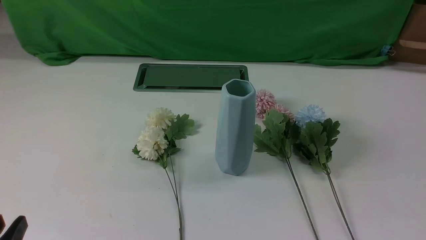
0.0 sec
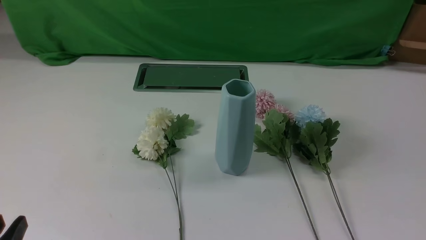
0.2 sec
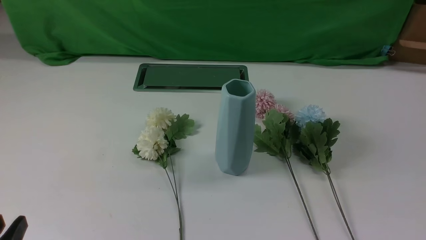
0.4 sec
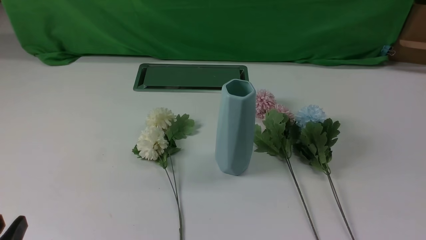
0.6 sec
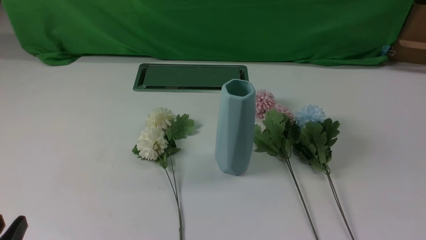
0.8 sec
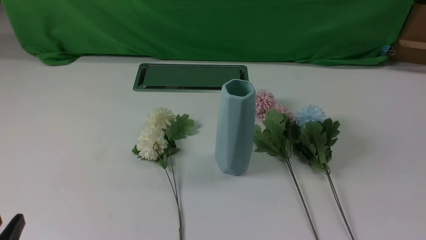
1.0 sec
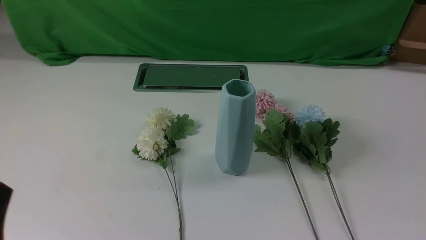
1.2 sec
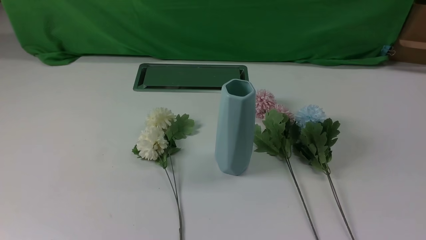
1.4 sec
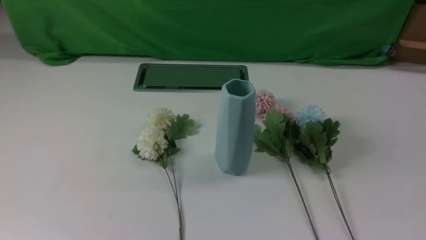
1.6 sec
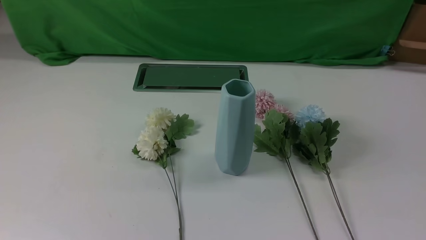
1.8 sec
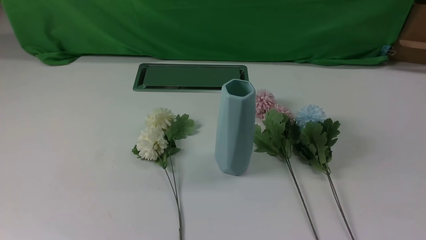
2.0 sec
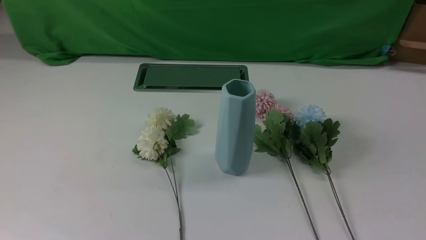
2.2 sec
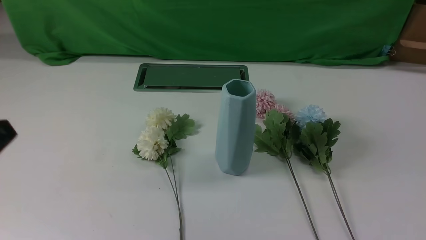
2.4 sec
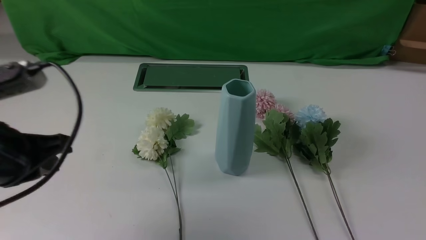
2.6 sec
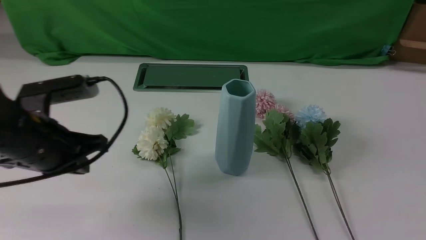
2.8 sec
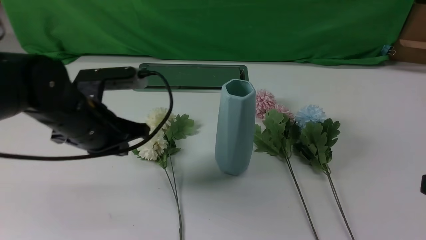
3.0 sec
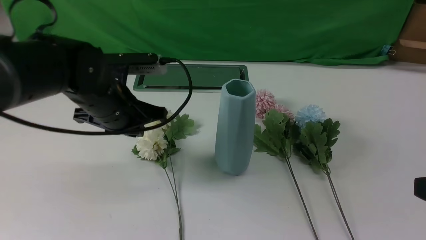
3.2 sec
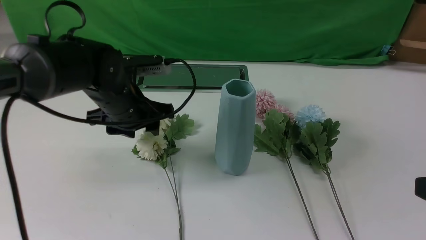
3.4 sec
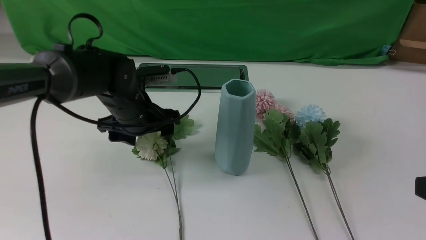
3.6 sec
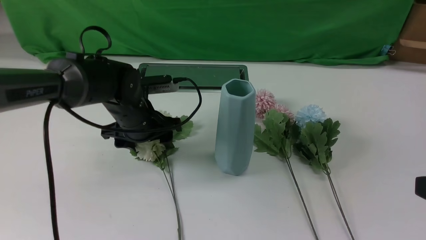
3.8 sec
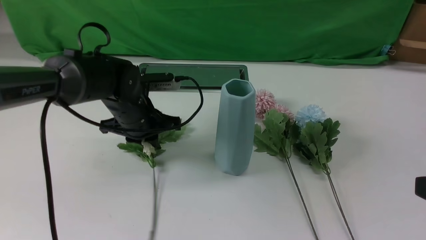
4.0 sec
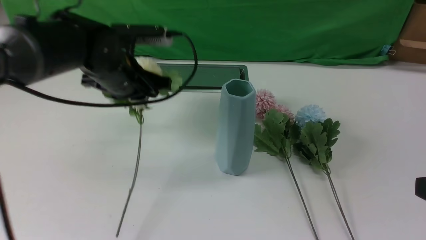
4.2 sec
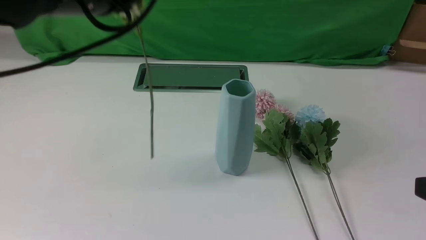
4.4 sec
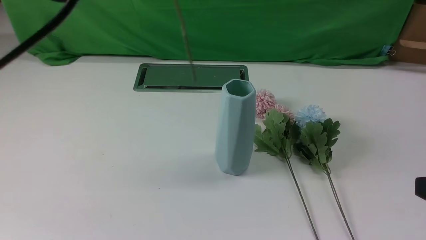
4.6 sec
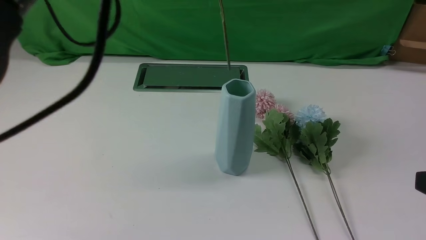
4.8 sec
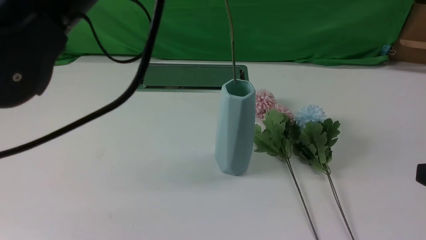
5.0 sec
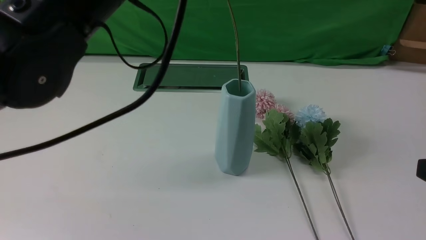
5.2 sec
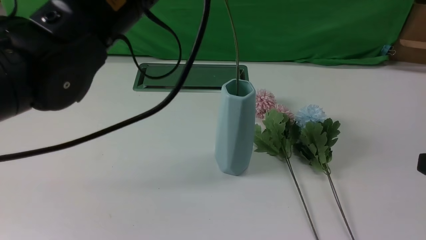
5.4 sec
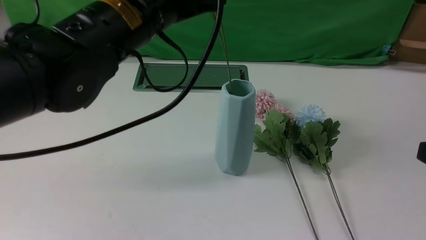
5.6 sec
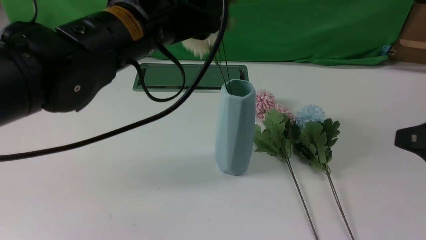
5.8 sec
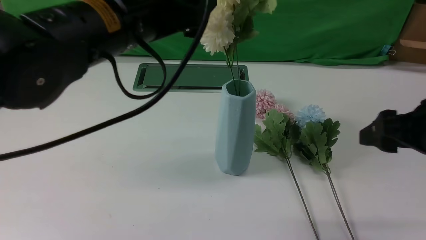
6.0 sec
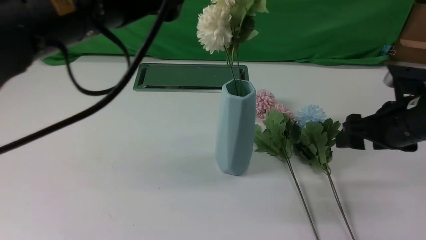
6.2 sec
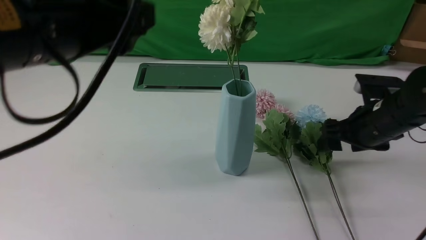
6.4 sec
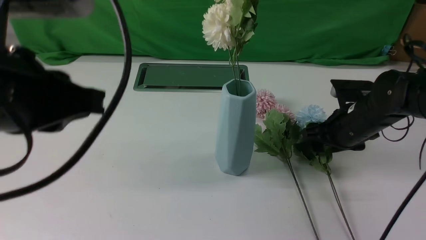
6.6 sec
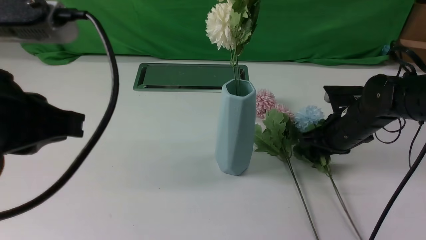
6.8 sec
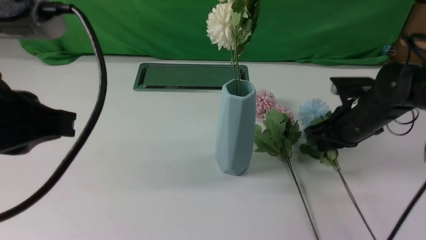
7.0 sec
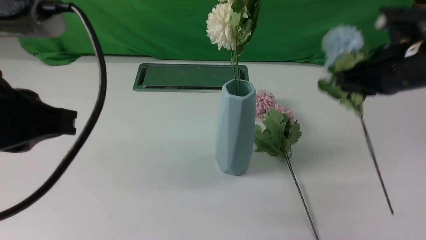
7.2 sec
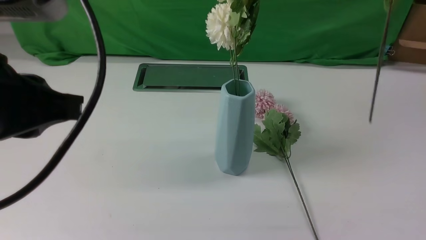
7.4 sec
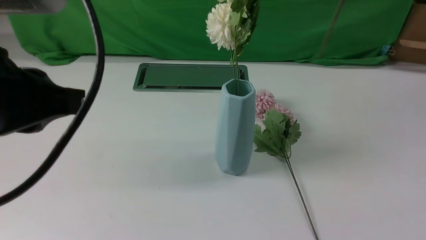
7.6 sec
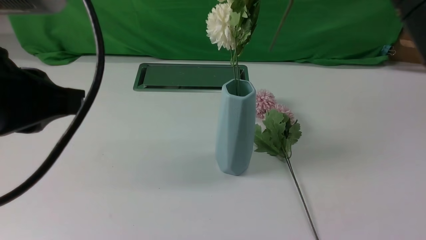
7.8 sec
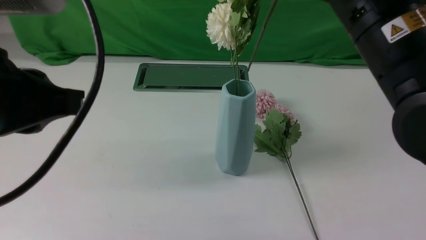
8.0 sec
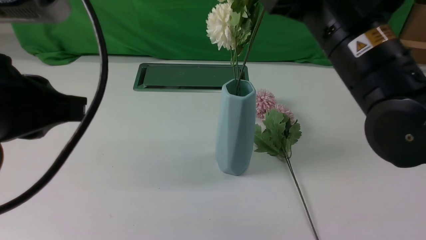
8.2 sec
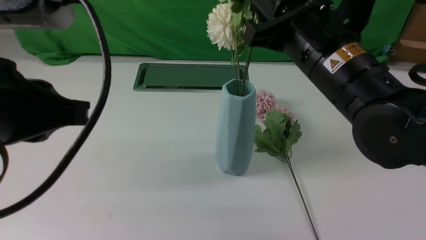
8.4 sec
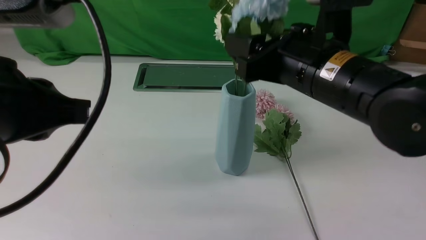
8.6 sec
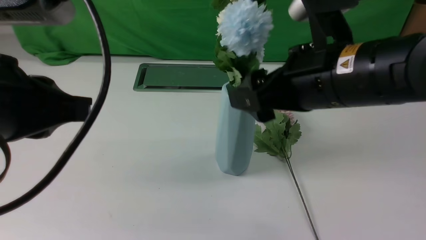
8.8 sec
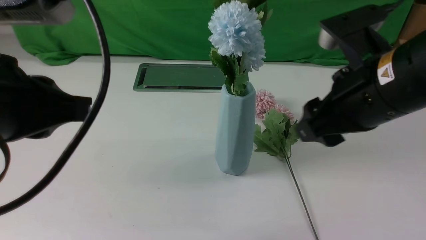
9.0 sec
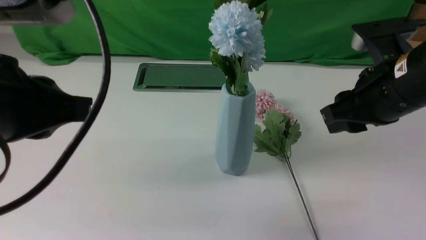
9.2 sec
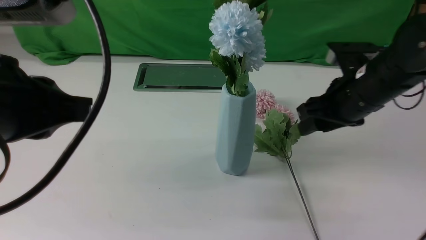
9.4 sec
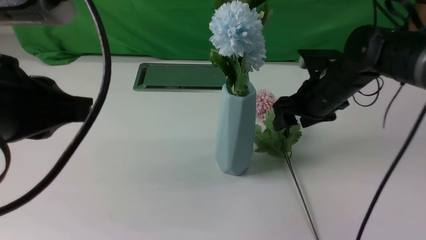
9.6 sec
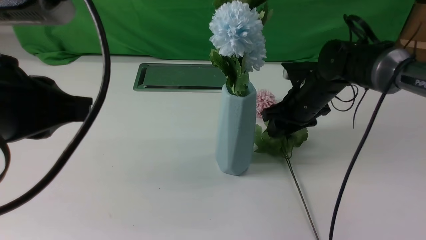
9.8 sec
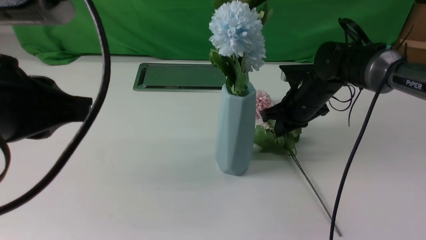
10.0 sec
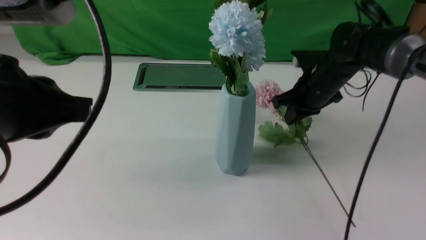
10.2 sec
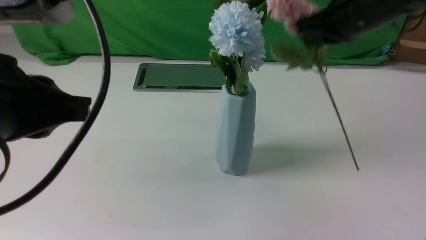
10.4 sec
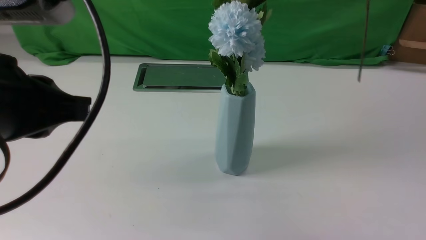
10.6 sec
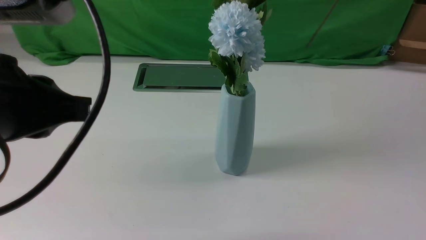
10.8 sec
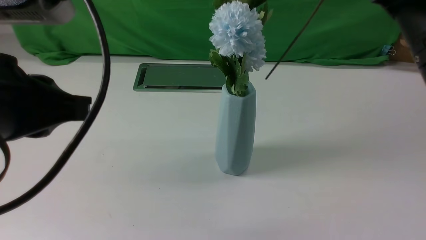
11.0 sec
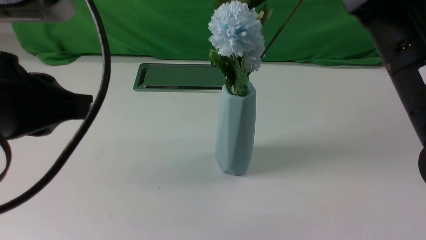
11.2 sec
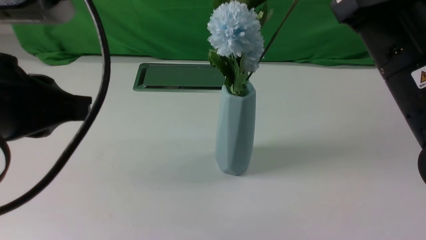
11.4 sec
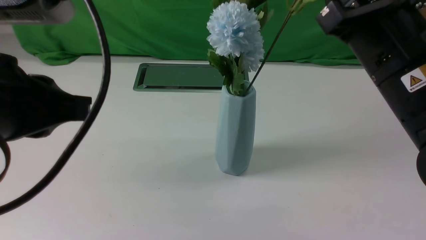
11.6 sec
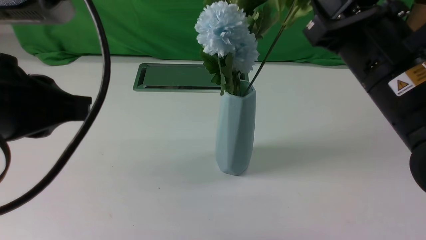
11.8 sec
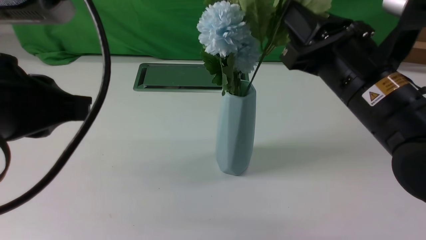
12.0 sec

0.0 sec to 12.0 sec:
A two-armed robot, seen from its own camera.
Task of the whole recording: insert the flowers into the vase on the white table.
Step, 0.0 sec to 3.8 sec: use the left arm to grab a bunch of fresh flowers.
Step, 4.2 sec to 5.8 sec: use the left arm to insert the flowers into the vase.
Step, 6.0 sec to 6.8 sec: use the right arm to grab a bunch of fresh flowers.
Step, 7.0 sec to 8.6 sec: use the right arm to insert the flowers into the vase.
Step, 8.8 sec to 10.0 sec: use the right arm to grab a bunch of fresh flowers.
1.6 sec to 3.0 sec: The left gripper heads forward, covering approximately 25 cm, and closes up. The right gripper travels upward and forward by some 15 cm.
3.0 sec to 4.4 sec: The left gripper goes some 15 cm upward, and opens, then closes once more.
4.4 sec to 6.0 sec: The left gripper travels backward by approximately 5 cm, moves roughly 5 cm upward and comes back, and opens; the right gripper travels forward by about 15 cm, and opens its fingers.
6.0 sec to 7.6 sec: The left gripper moves backward and to the left, roughly 15 cm, and closes its fingers, while the right gripper is displaced upward and to the left by approximately 20 cm, and closes.
7.6 sec to 9.0 sec: The right gripper travels downward by some 10 cm, and opens up.
9.0 sec to 10.4 sec: The right gripper heads forward, covering some 15 cm, moves approximately 15 cm downward and comes back, and closes up.
10.4 sec to 12.0 sec: The right gripper travels backward and downward by approximately 15 cm, and opens up.

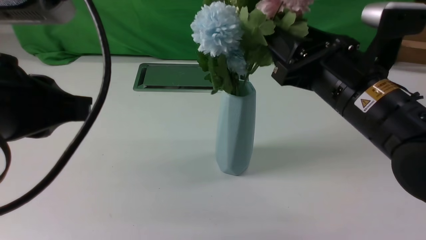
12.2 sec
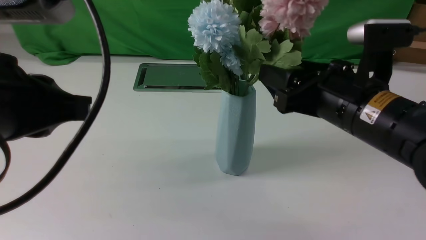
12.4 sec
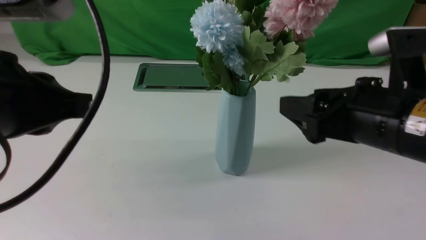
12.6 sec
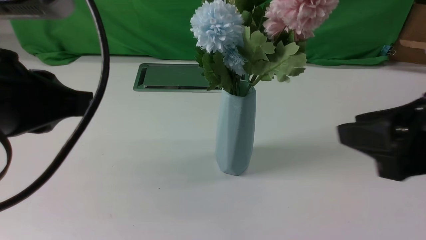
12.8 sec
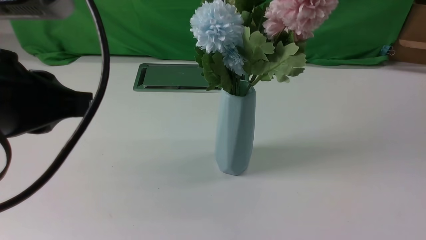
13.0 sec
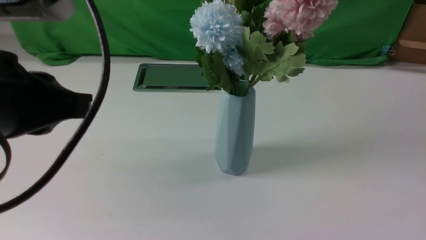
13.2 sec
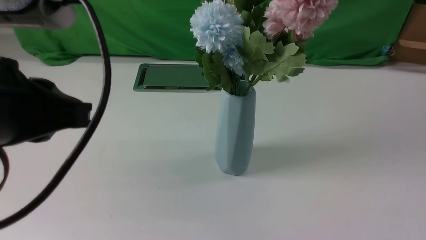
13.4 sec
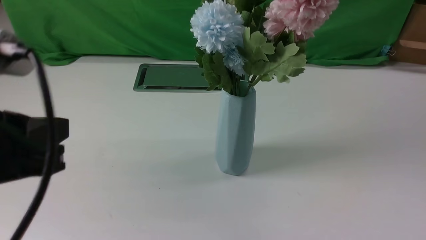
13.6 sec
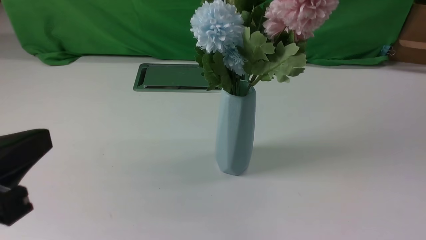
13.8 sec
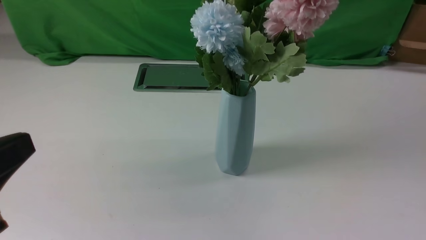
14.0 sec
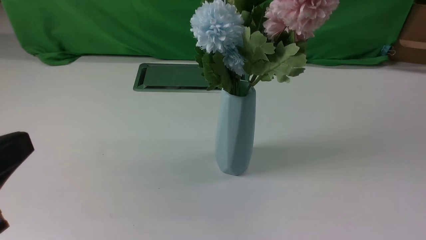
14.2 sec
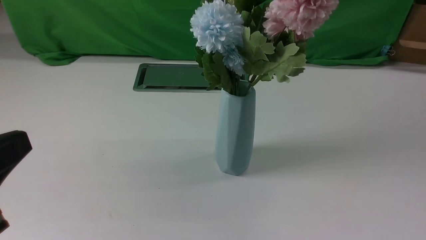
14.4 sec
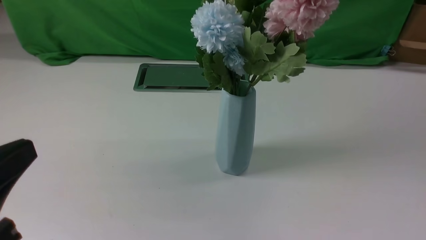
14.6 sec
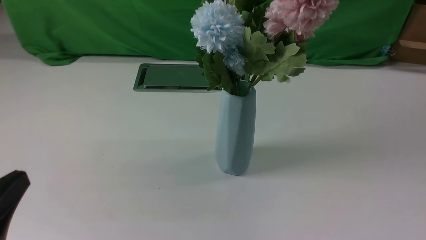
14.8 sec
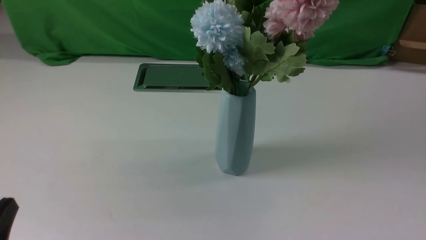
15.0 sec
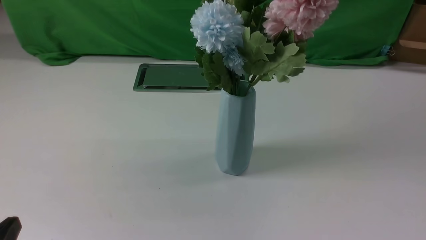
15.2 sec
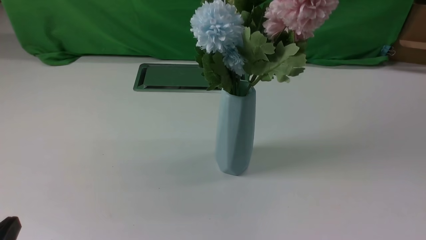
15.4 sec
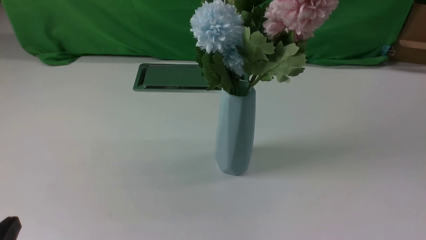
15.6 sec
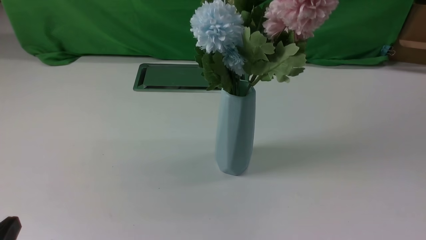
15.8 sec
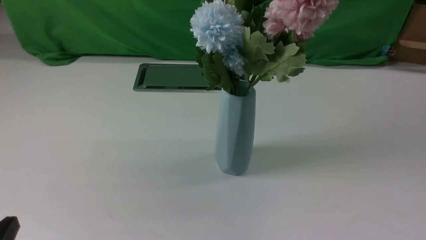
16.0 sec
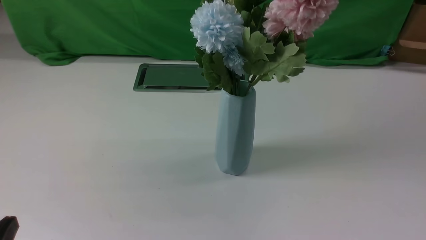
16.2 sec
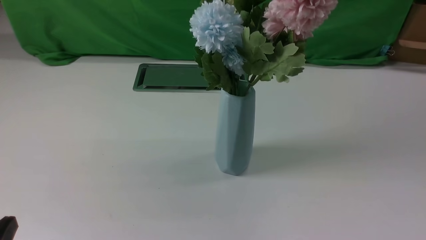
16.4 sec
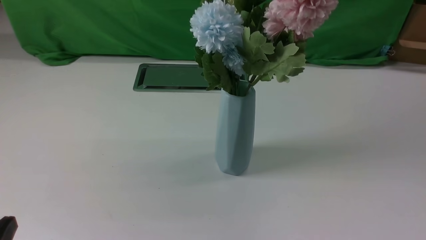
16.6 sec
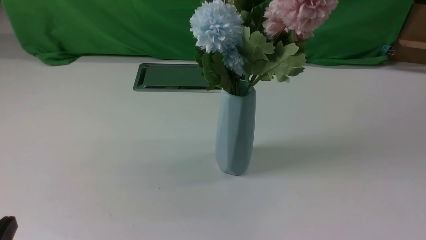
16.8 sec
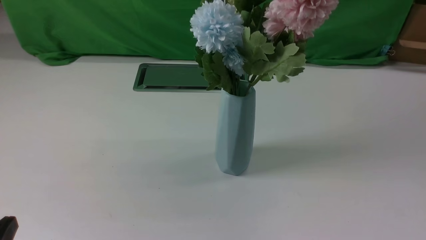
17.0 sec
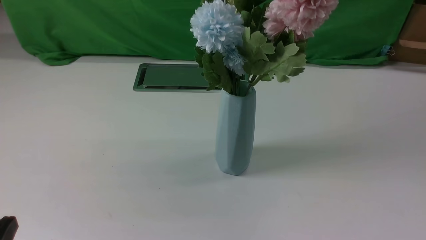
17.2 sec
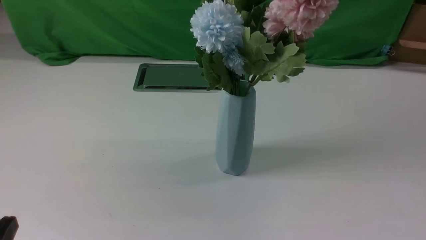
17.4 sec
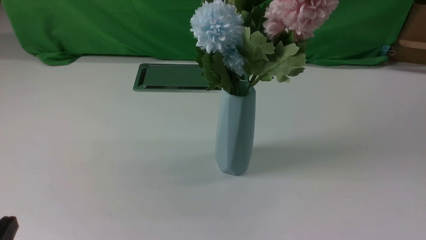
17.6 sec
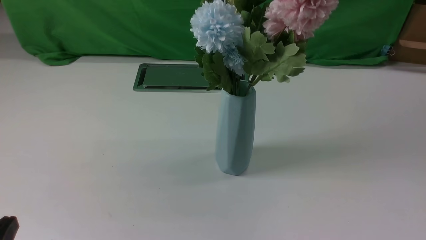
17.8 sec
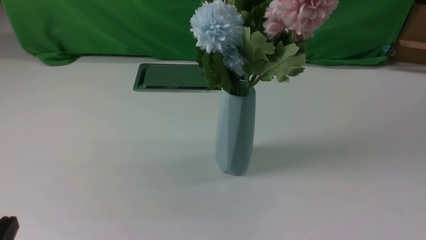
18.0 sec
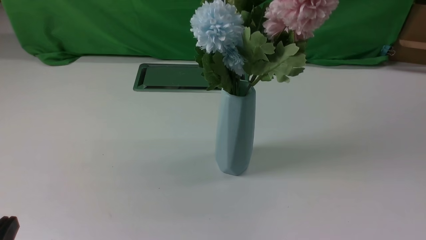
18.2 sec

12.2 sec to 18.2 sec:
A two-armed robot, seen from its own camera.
Task of the whole recording: insert the flowers into the vase on the white table.
12.2 sec to 13.8 sec: The left gripper is displaced backward by approximately 5 cm. Meanwhile the right gripper shifts roughly 30 cm backward and to the right, and closes up.
13.8 sec to 15.2 sec: The left gripper heads downward, covering roughly 15 cm.
